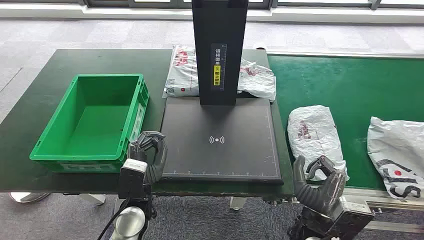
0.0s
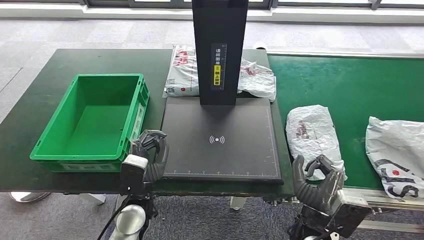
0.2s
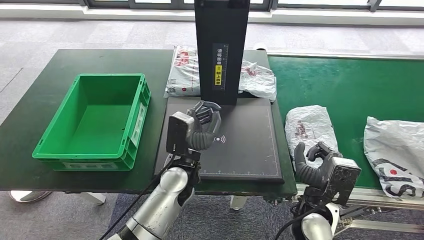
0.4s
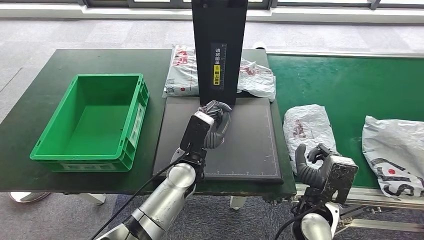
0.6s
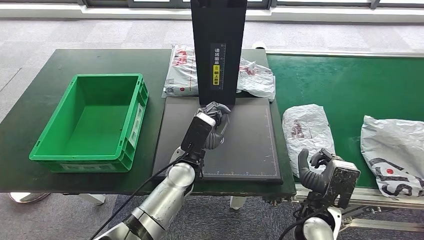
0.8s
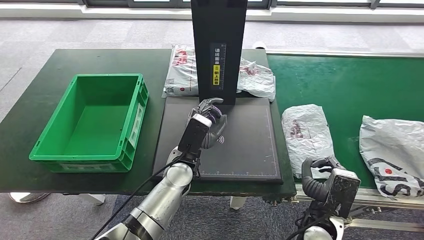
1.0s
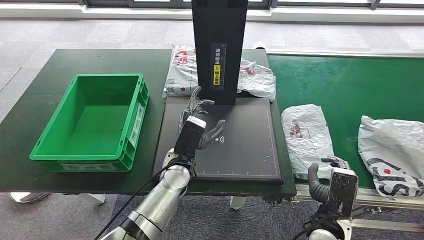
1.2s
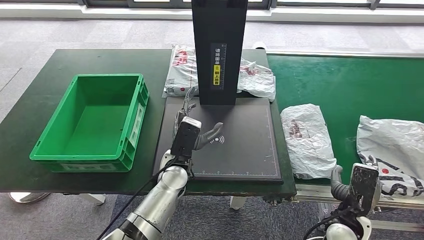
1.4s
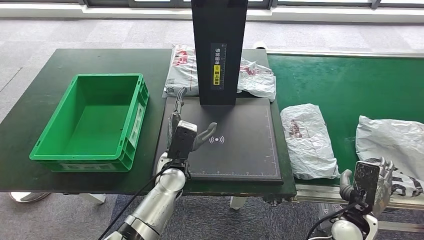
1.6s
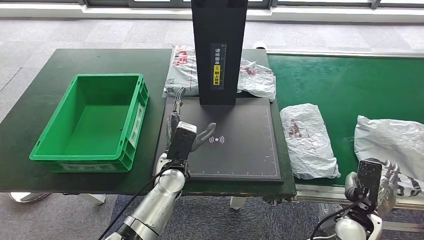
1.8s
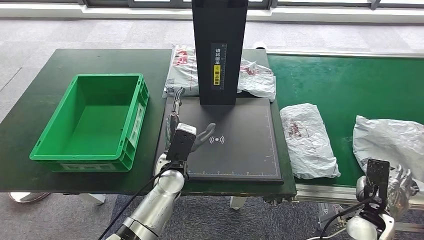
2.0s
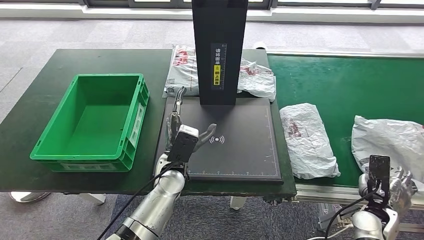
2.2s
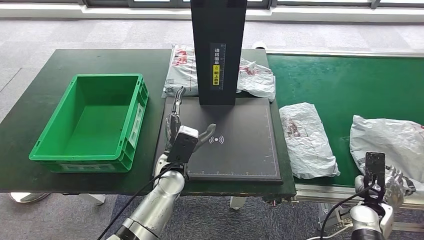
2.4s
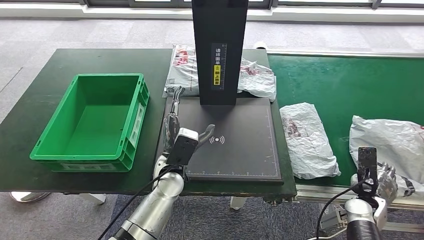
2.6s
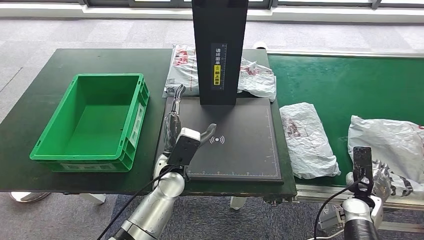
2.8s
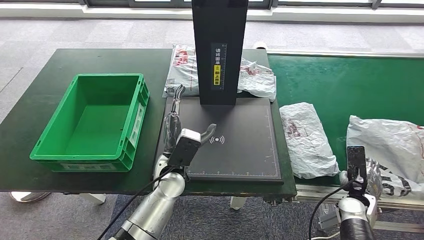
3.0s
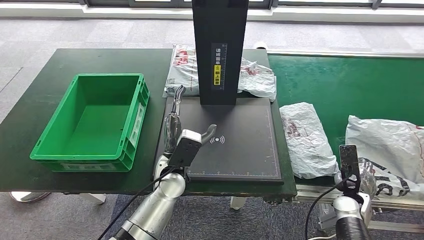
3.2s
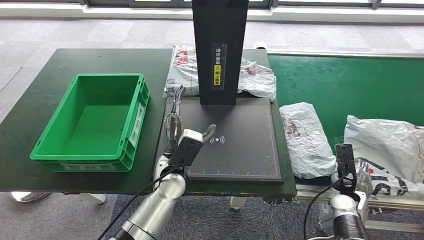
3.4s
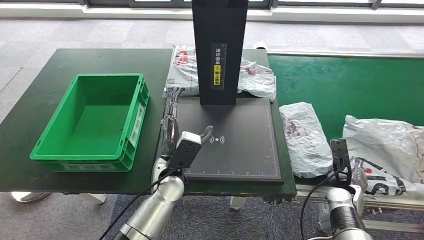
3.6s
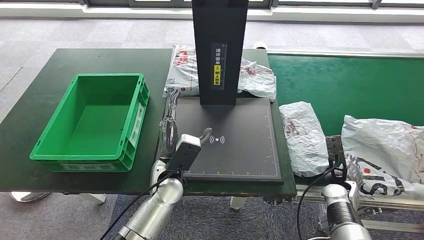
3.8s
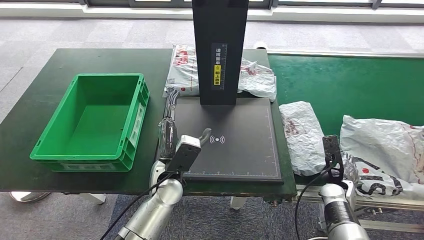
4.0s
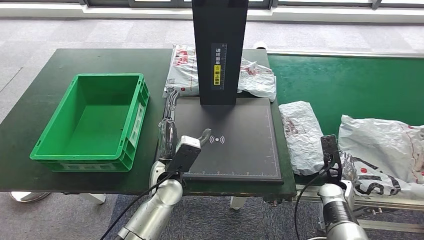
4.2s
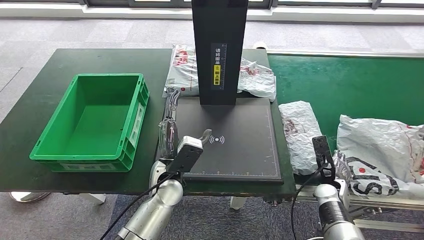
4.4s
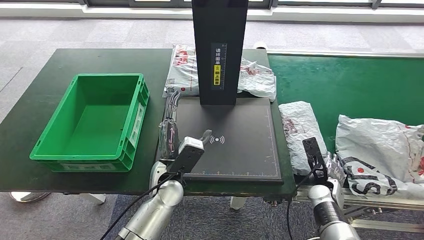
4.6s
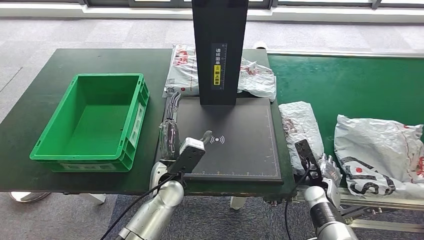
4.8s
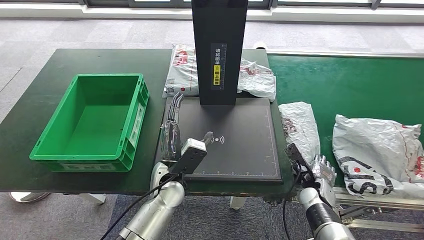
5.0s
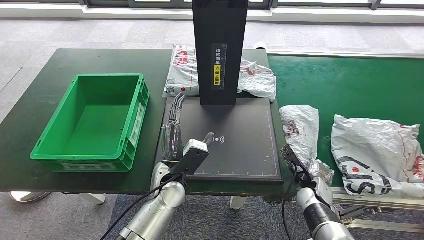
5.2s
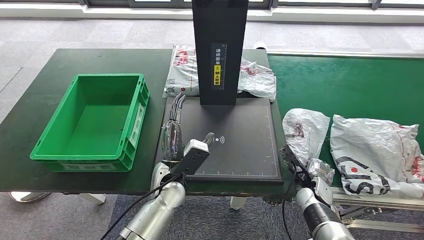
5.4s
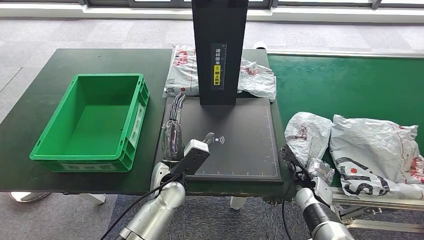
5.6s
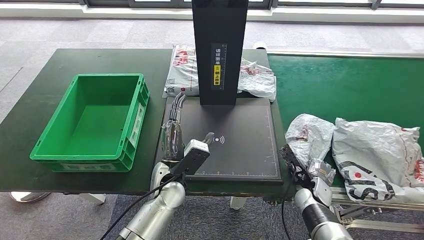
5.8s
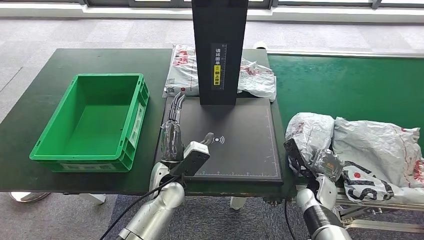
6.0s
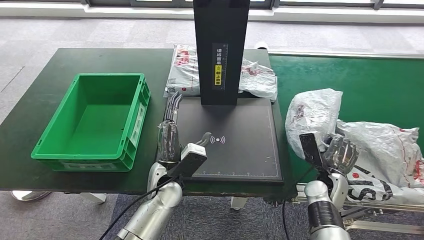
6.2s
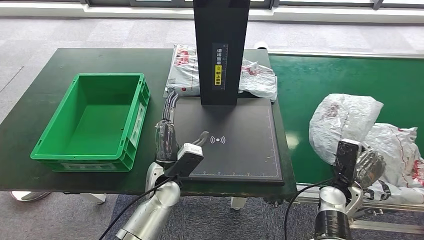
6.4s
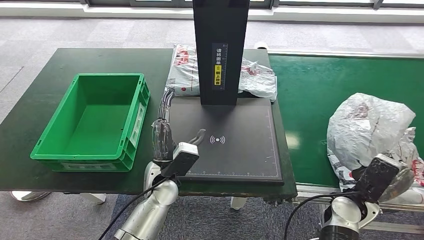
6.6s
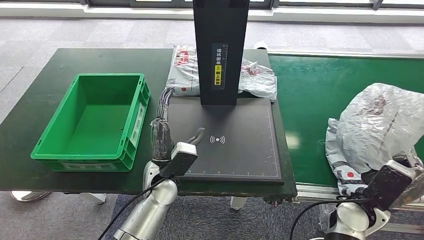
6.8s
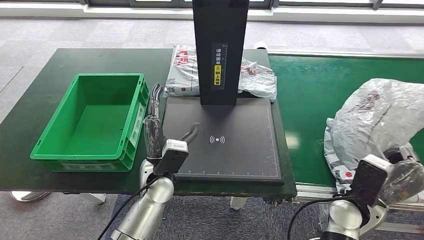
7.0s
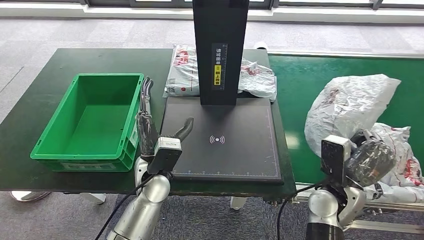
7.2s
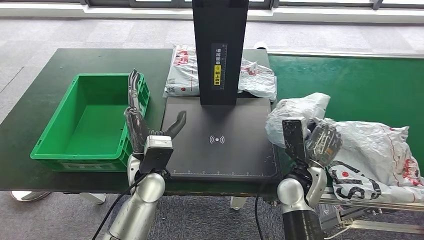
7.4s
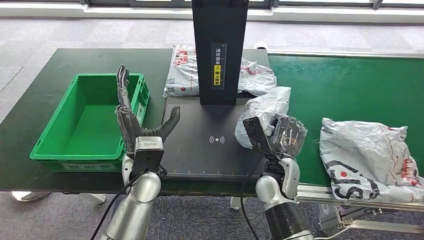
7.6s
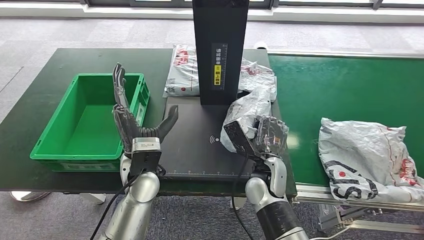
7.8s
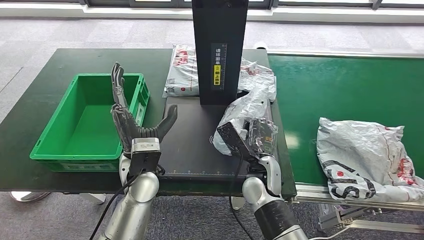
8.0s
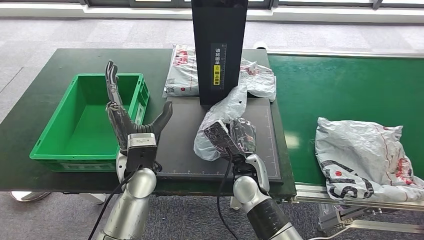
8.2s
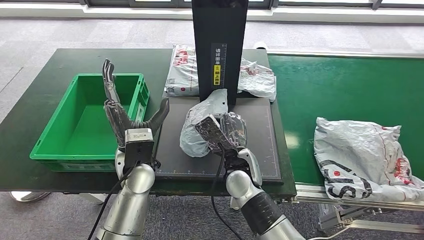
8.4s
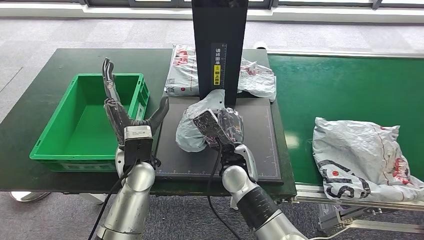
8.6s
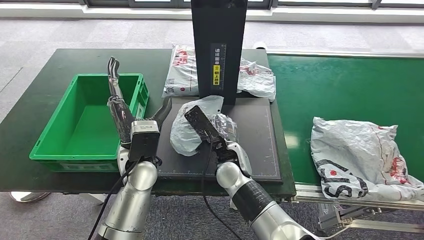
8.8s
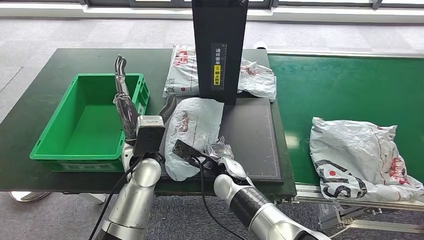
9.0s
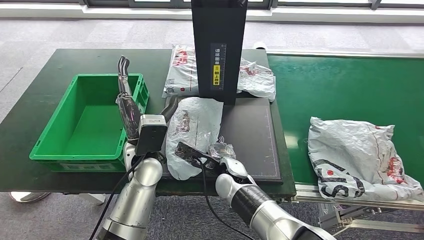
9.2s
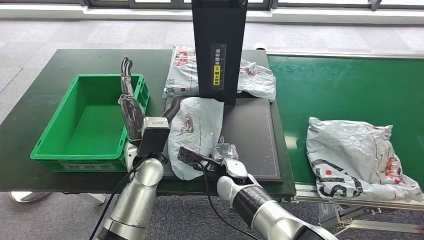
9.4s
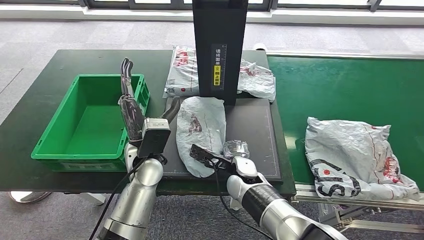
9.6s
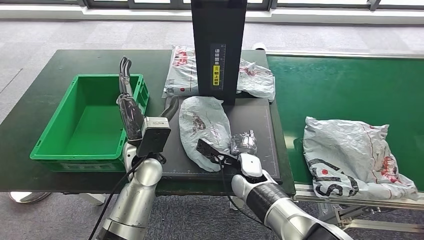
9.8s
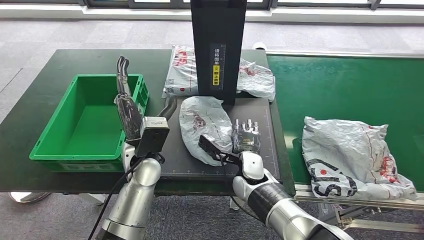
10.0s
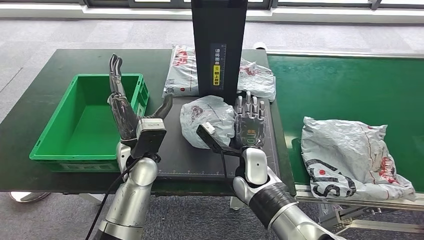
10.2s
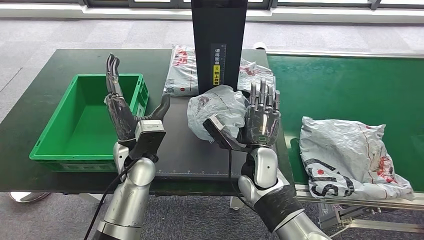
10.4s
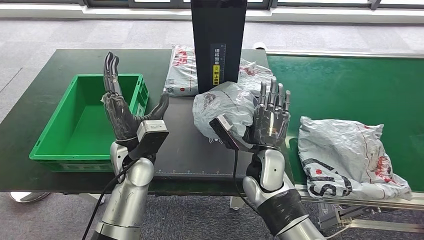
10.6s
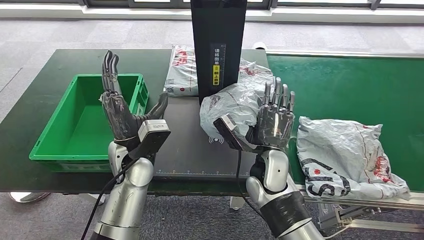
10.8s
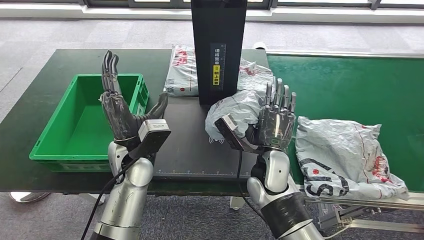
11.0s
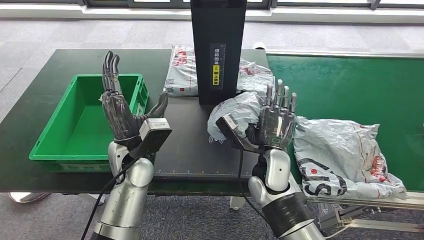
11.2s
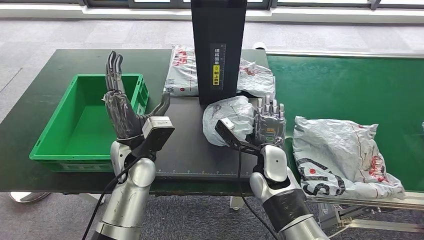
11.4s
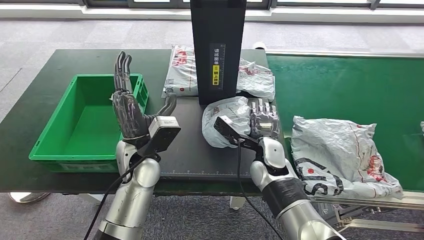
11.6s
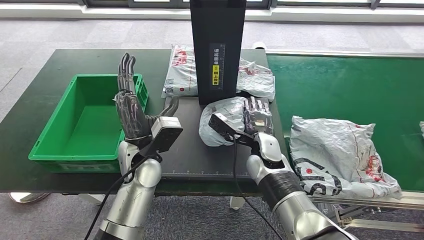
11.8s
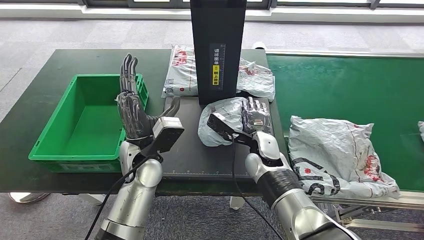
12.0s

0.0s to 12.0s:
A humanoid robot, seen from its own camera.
Step, 0.0s to 7.0s: Take the parcel off the conveyor belt.
Step, 7.4s to 9.4s: Place the parcel onto the inbound machine.
1.6s to 3.0s: The right hand shifts some 10 cm forward and to the right.
3.0s to 4.4s: The right hand moves to the left, some 5 cm.

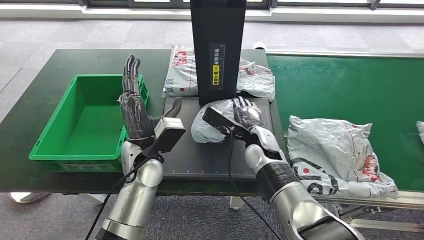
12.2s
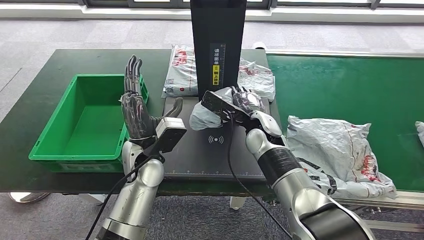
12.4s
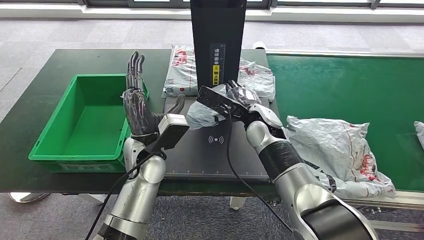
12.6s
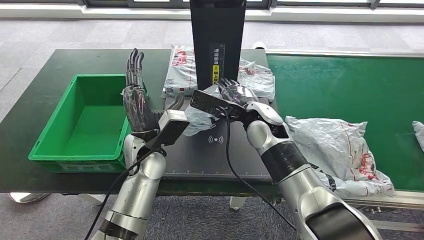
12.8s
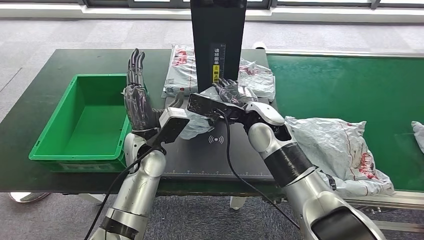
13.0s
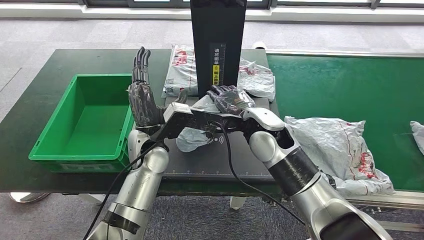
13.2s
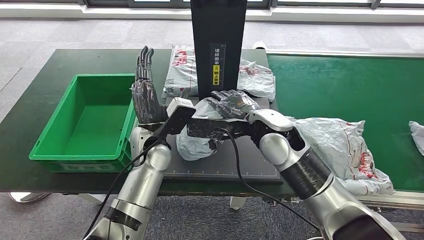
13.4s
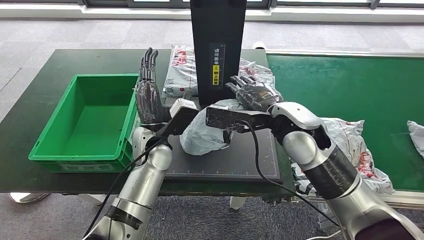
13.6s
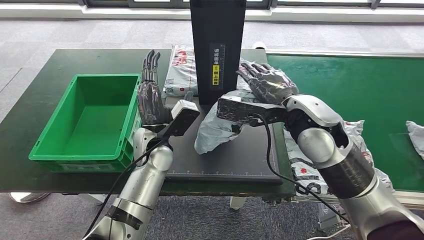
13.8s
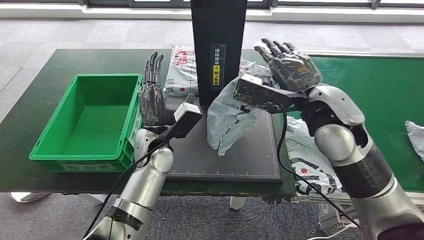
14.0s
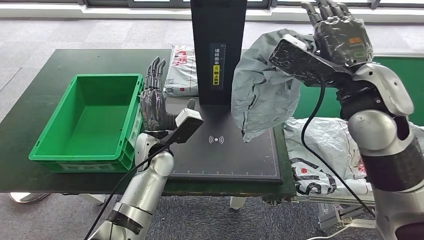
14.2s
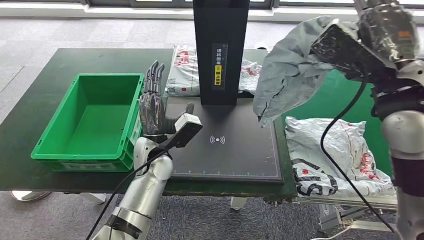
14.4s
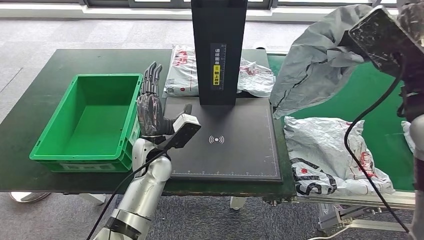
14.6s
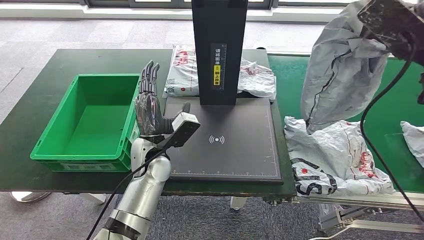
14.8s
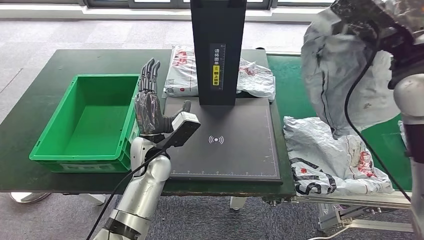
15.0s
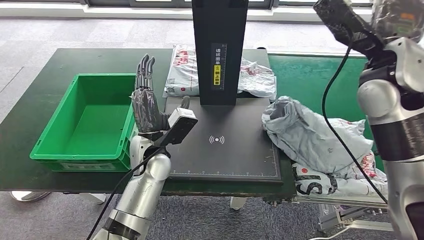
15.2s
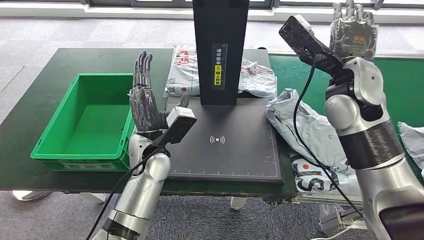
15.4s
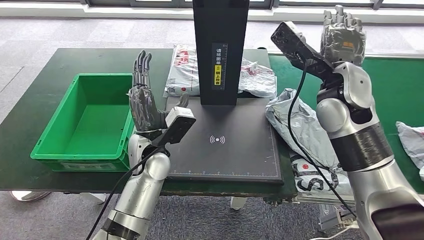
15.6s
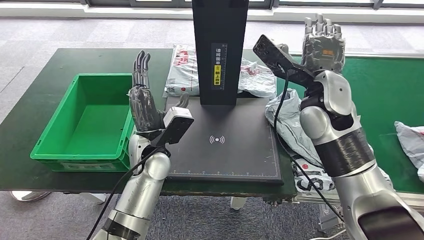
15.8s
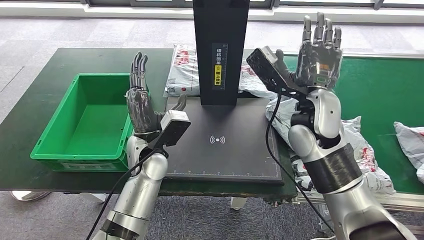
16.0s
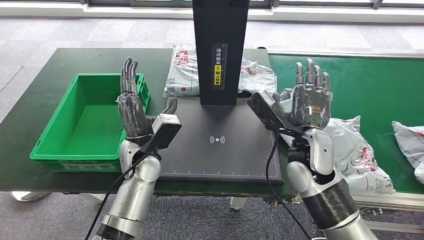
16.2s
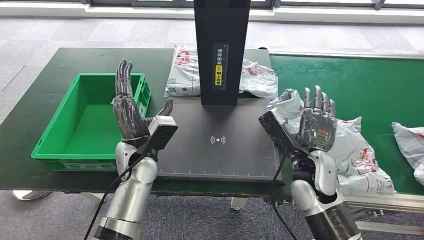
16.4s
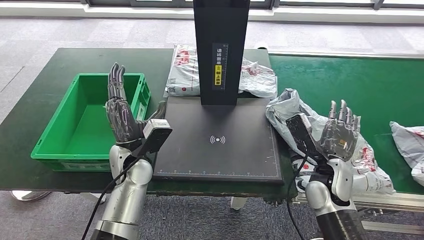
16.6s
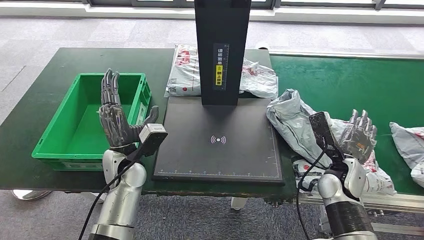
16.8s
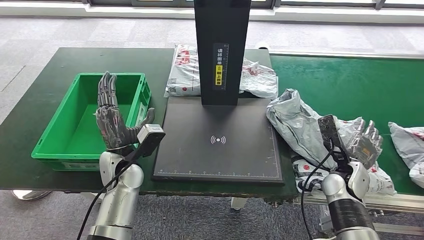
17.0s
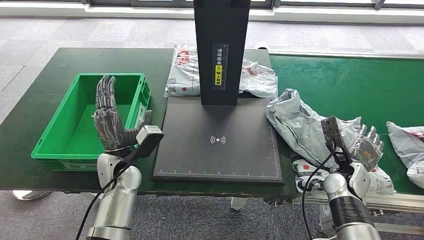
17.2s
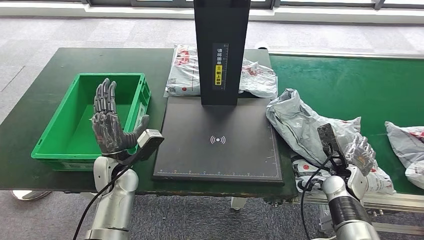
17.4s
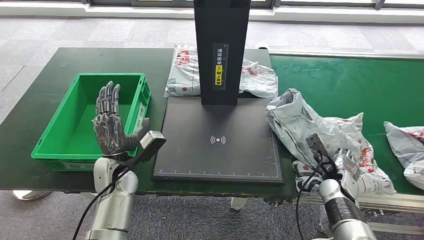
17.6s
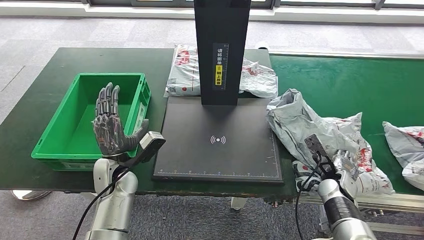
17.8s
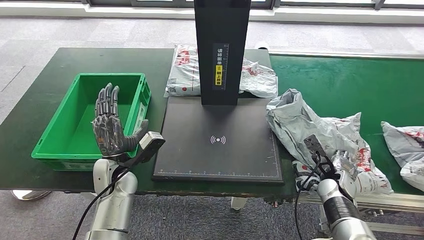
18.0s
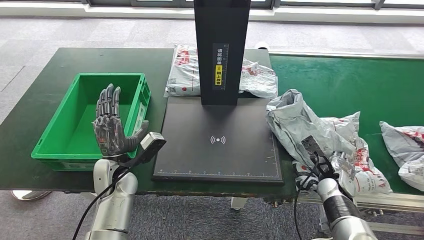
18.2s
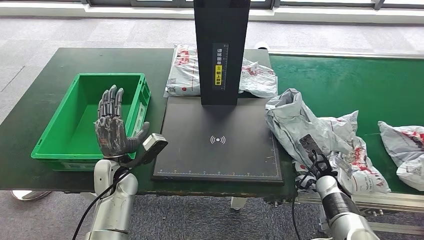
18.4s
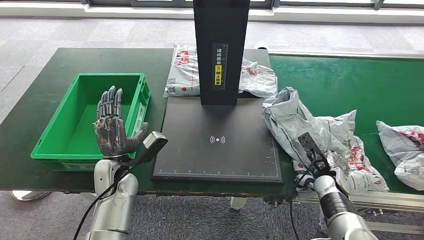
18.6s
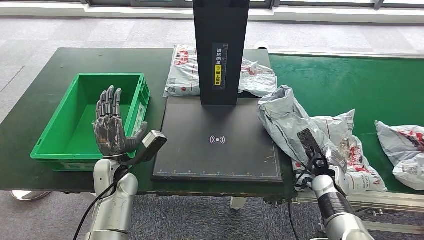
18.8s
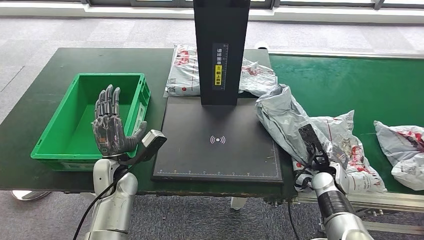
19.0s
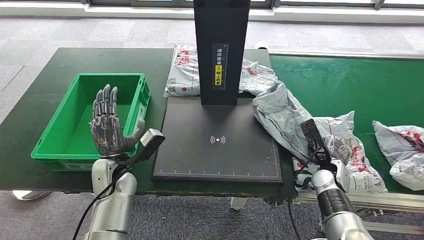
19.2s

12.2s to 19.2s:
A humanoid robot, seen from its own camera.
16.4s to 17.8s: The left hand heads to the left and downward, covering approximately 10 cm. The right hand shifts some 20 cm downward and to the right.
